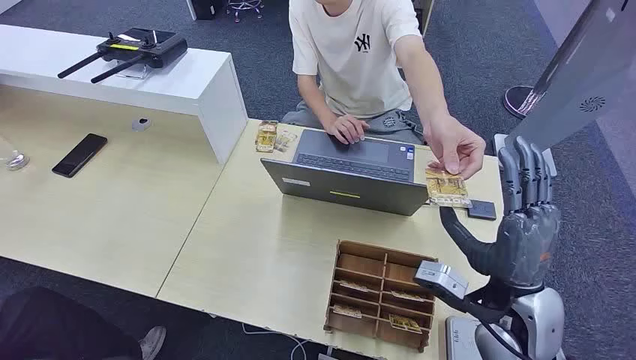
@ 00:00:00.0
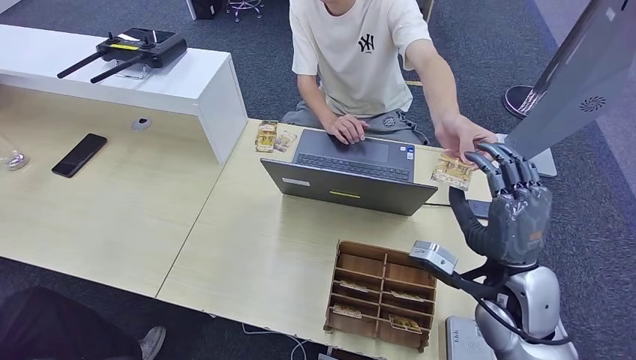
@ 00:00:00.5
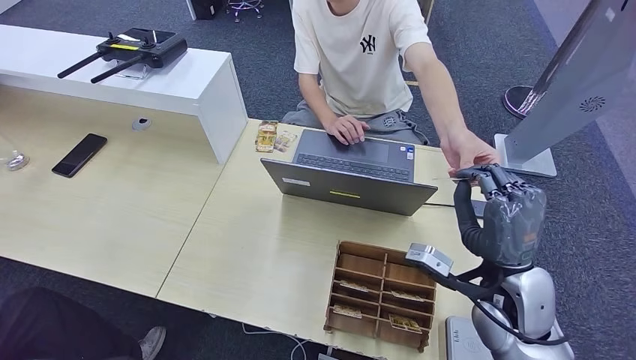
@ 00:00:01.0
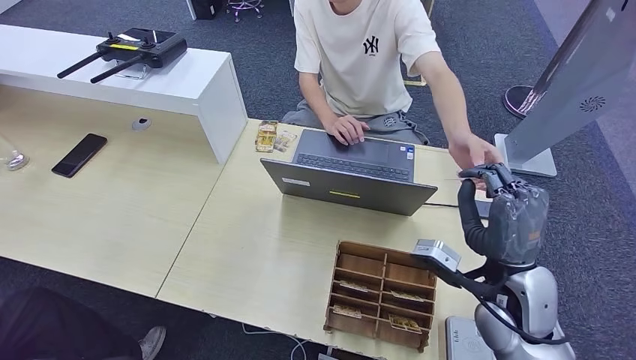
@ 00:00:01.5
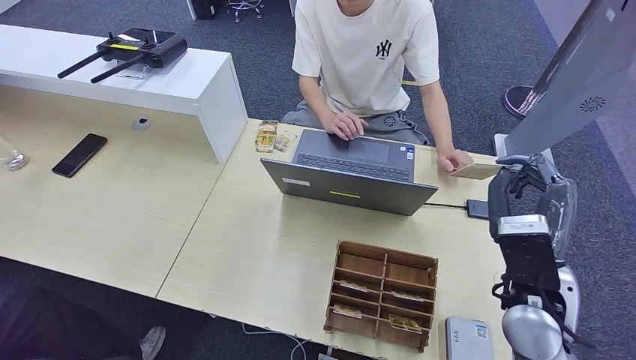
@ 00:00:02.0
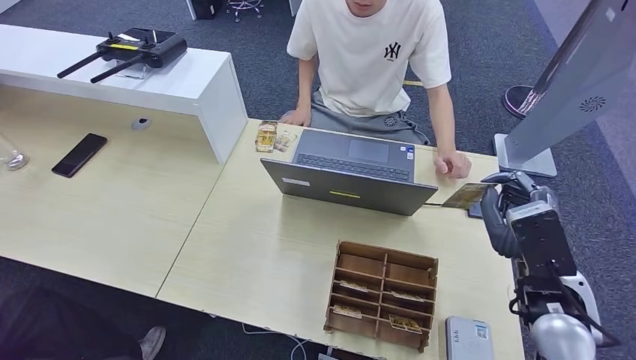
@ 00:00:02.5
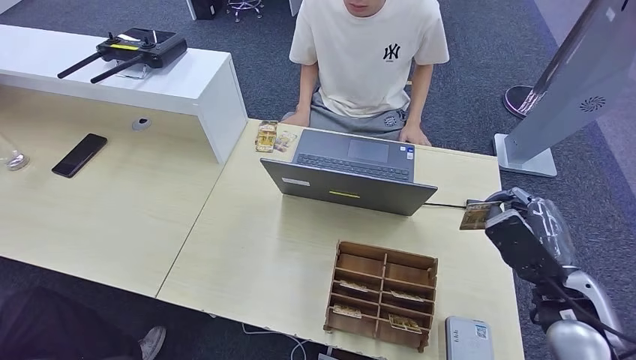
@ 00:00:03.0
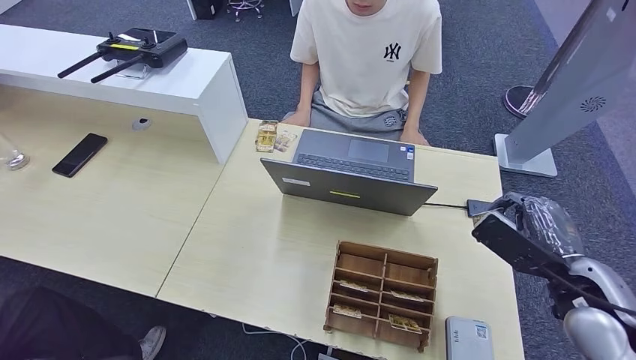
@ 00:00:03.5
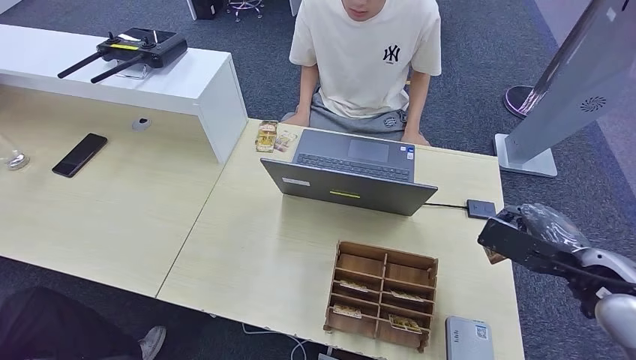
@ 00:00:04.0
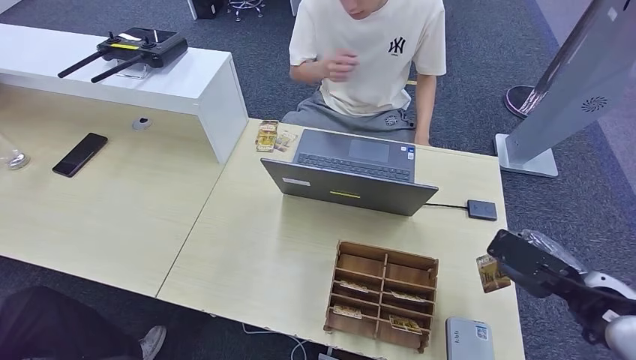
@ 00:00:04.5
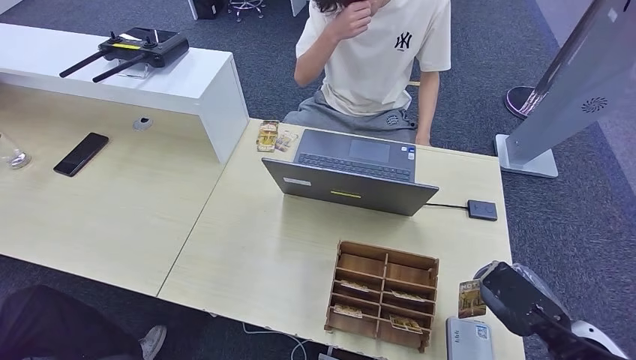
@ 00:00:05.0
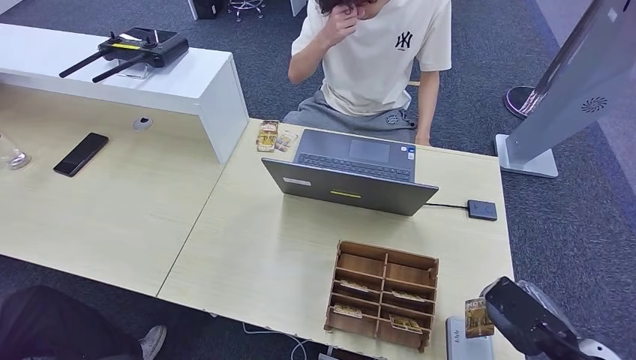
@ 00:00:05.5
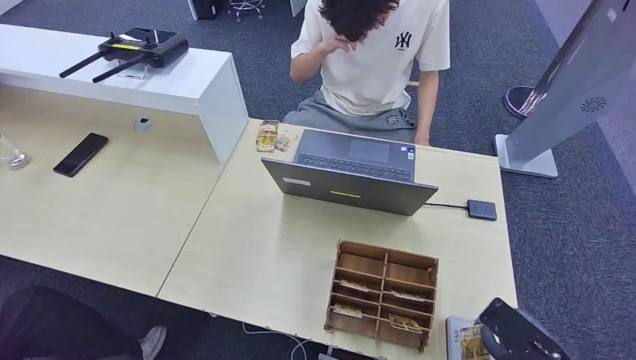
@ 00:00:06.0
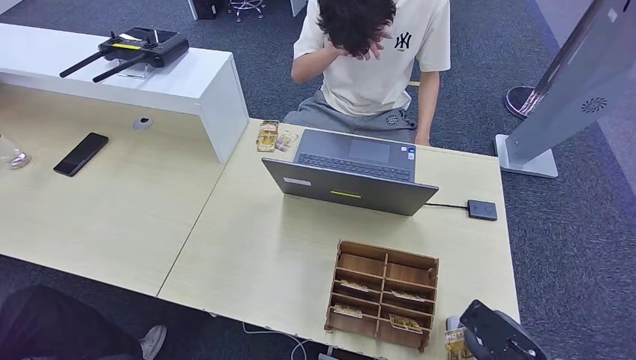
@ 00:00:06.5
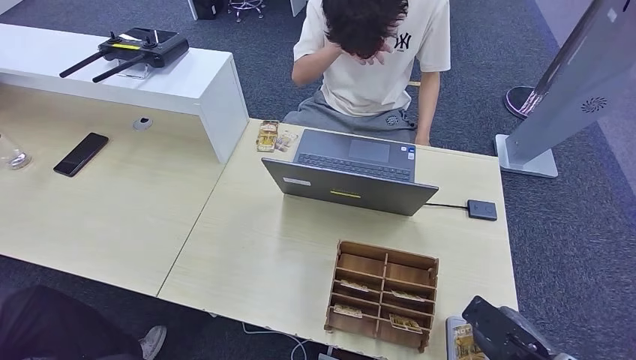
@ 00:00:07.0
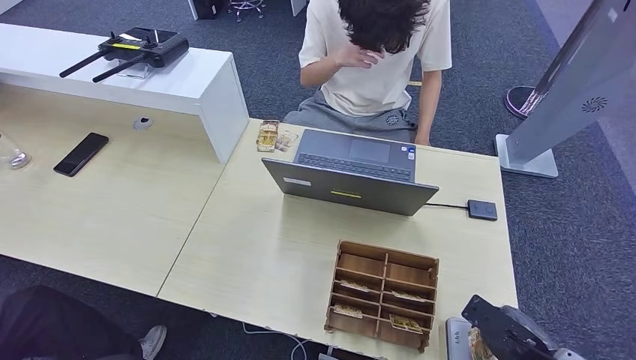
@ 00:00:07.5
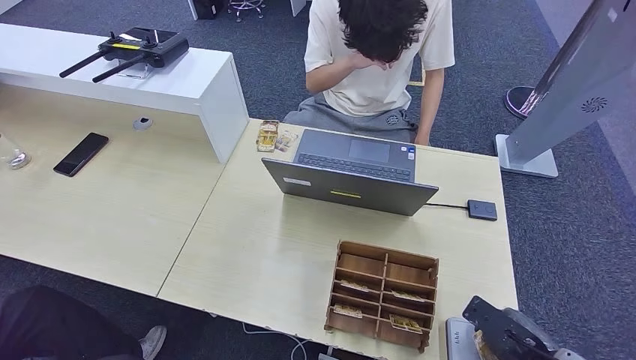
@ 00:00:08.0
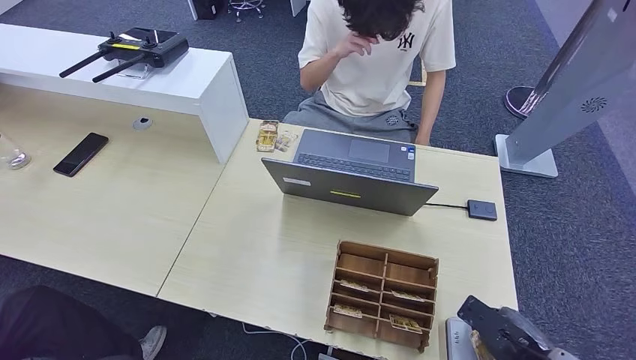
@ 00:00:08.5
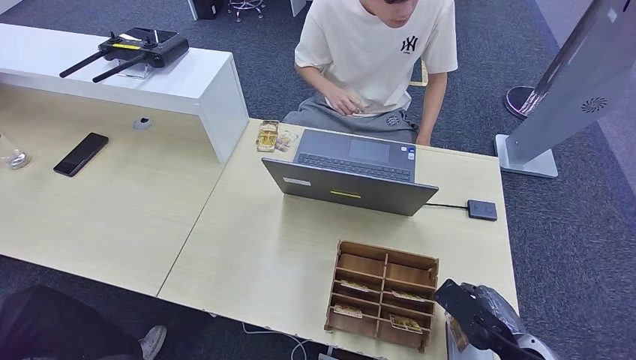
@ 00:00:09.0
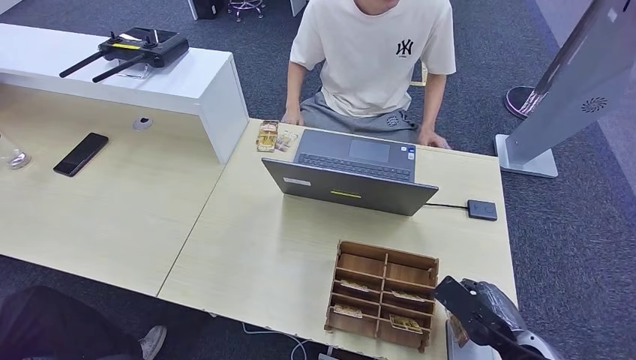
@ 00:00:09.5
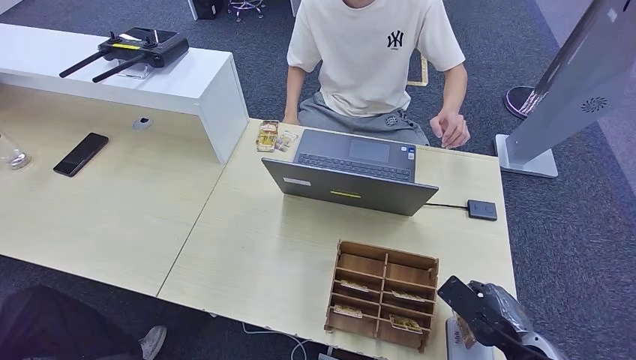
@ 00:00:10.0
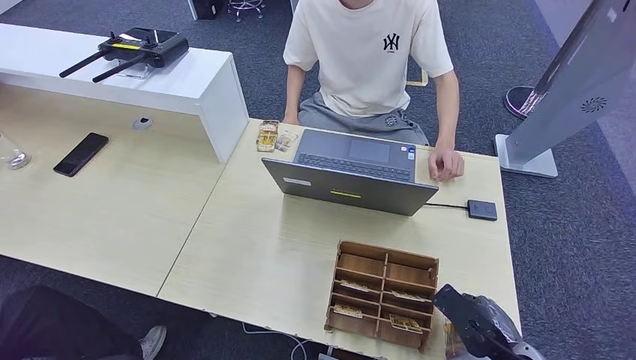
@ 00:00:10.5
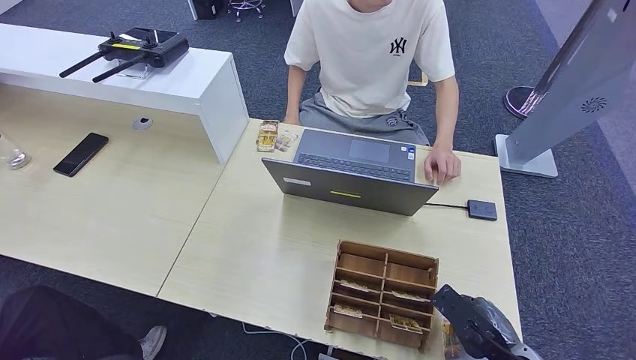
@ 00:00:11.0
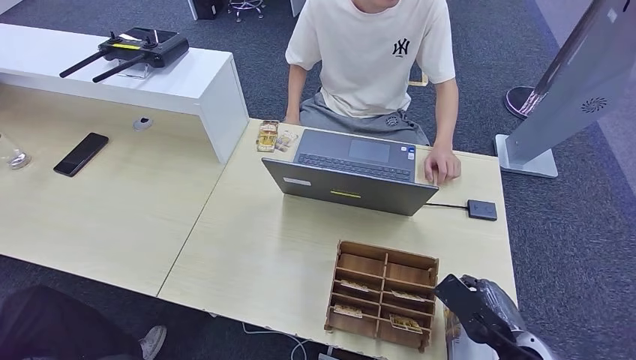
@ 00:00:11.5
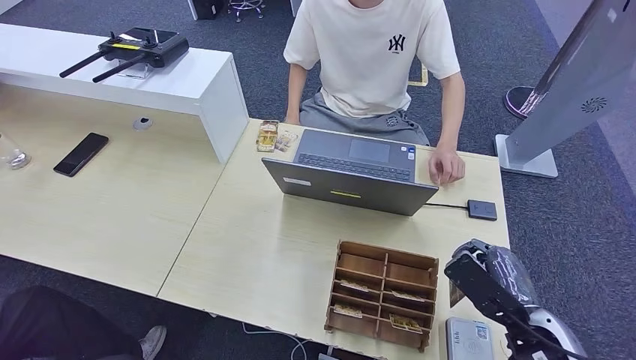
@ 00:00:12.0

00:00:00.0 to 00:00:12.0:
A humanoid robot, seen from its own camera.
Step, 00:00:00.0 to 00:00:02.0: Take the ID card from the person's hand.
Step, 00:00:02.5 to 00:00:08.0: Place the ID card on the card reader.
00:00:02.0 to 00:00:04.0: The right hand is displaced to the right by some 15 cm.
00:00:04.0 to 00:00:06.0: The right hand is displaced backward and downward by approximately 15 cm.
00:00:06.0 to 00:00:08.0: The hands stay close to where they were, moving slightly.
00:00:08.0 to 00:00:10.0: The right hand heads to the left, covering roughly 5 cm.
00:00:10.0 to 00:00:12.0: The right hand travels upward by approximately 5 cm.

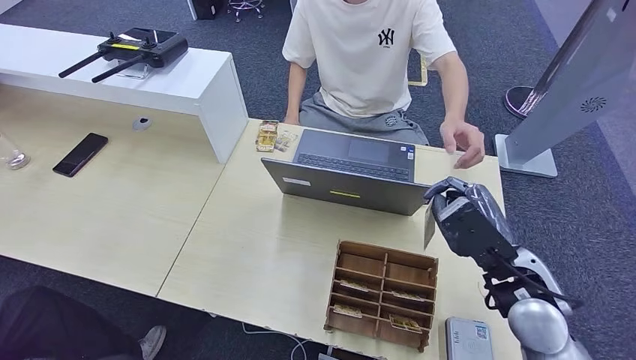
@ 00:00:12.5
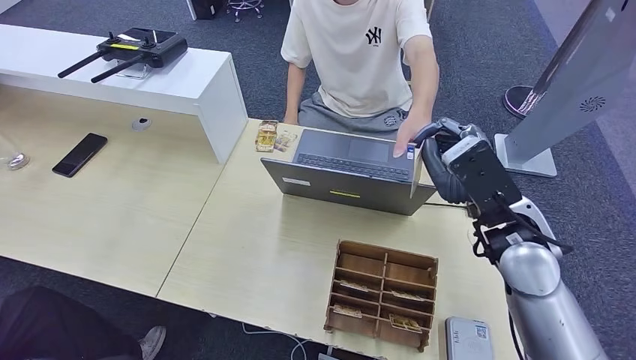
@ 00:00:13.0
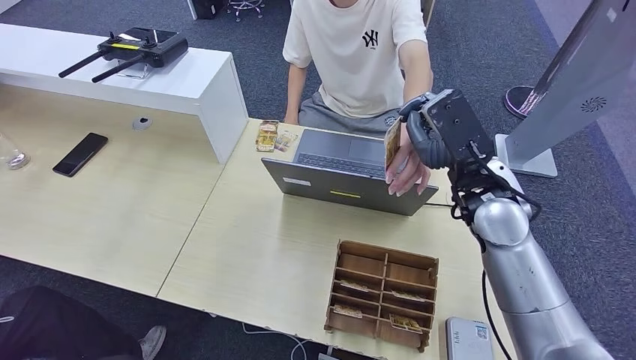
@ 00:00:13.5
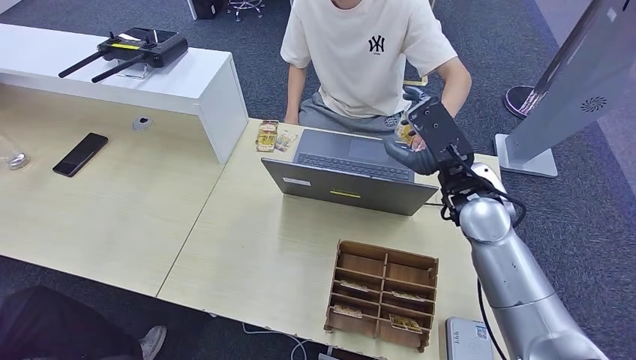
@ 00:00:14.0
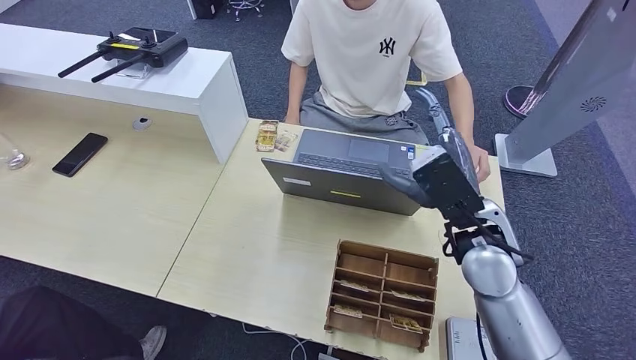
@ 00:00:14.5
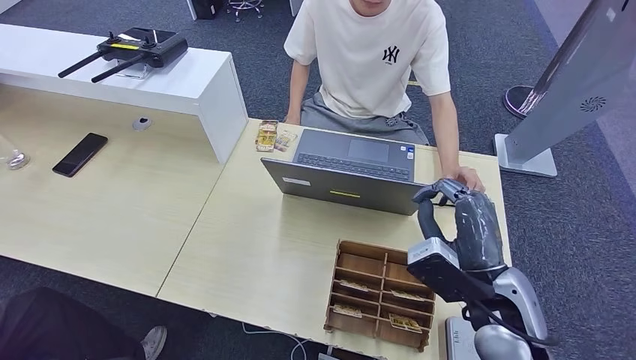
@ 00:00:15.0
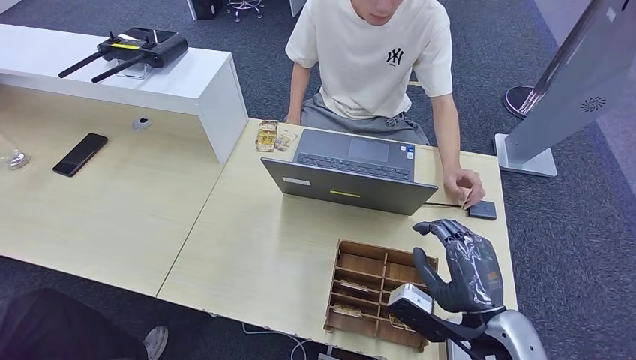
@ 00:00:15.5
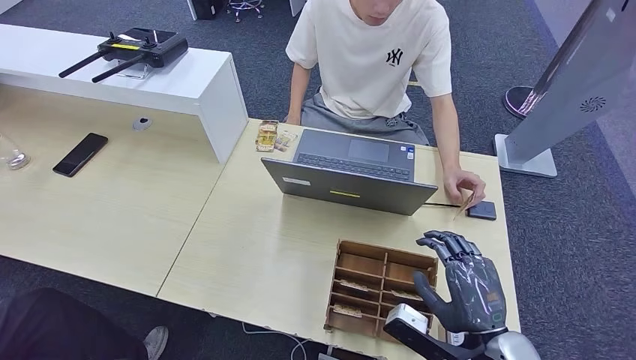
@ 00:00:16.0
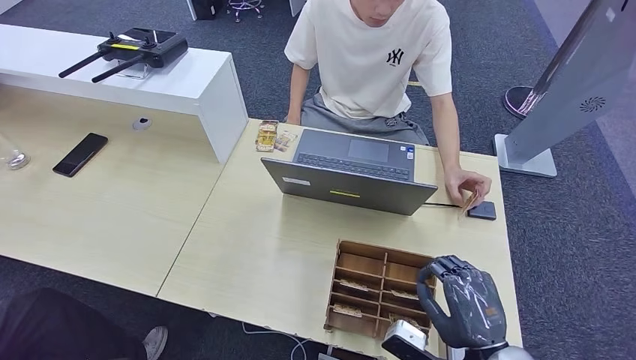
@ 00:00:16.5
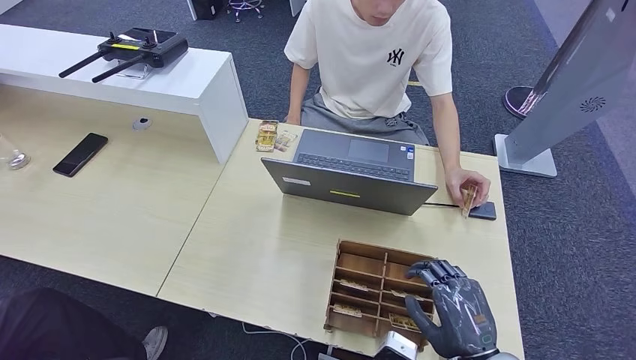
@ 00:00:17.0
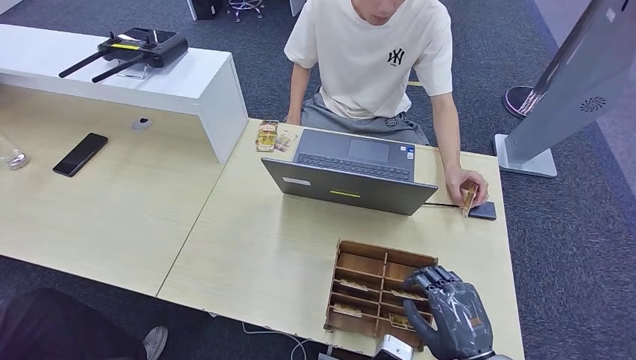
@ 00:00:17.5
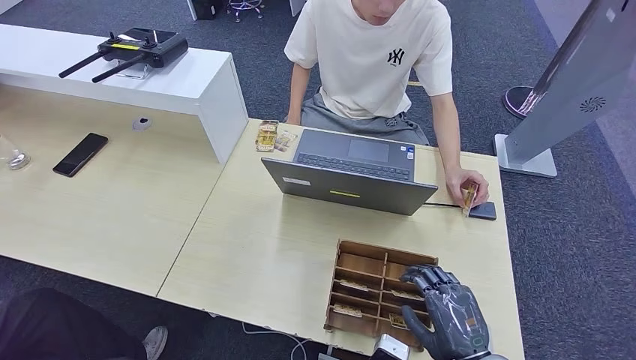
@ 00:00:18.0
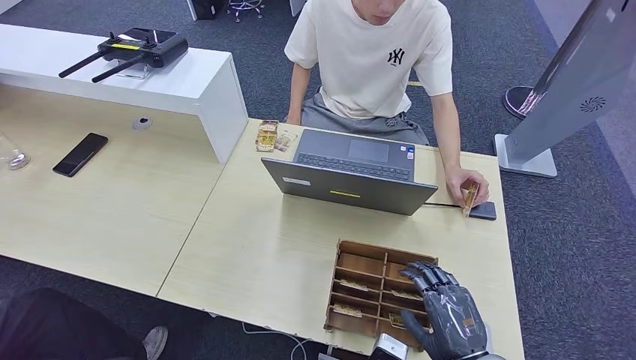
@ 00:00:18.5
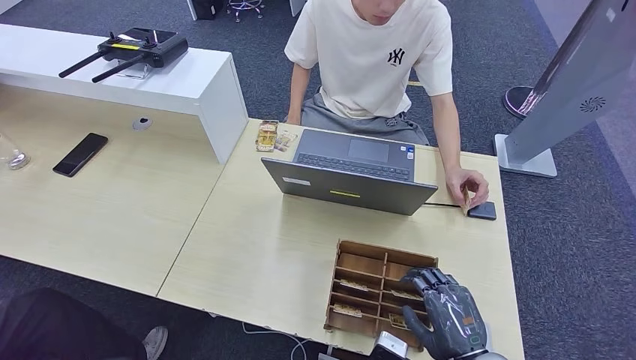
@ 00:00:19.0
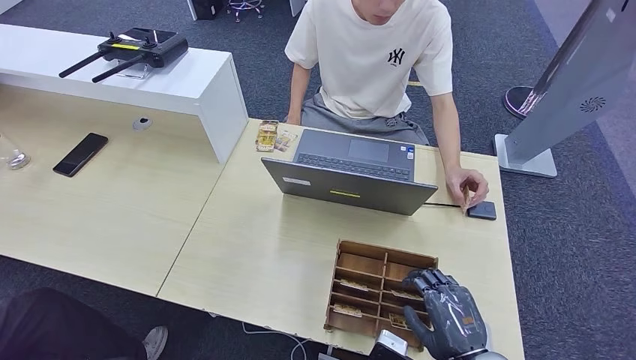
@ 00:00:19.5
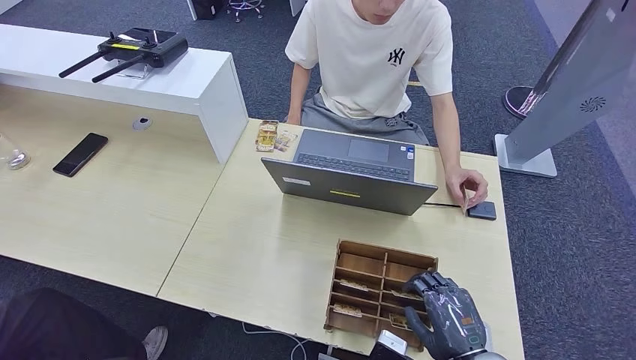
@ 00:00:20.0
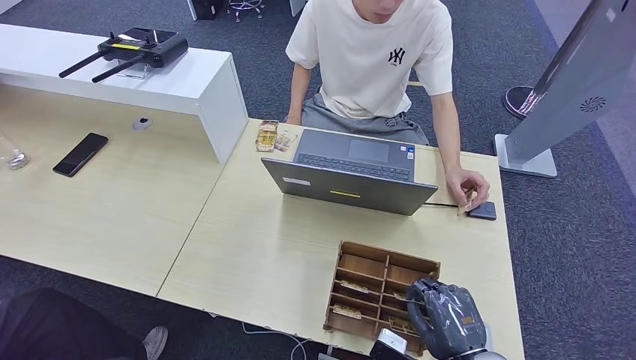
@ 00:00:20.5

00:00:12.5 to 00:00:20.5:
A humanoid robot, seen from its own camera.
Step, 00:00:12.5 to 00:00:15.0: Hand the ID card to the person.
00:00:12.5 to 00:00:14.5: The right hand heads to the left, covering about 10 cm.
00:00:14.5 to 00:00:16.5: The right hand goes about 20 cm backward, downward and to the right.
00:00:16.5 to 00:00:18.5: The hands make only small movements.
00:00:18.5 to 00:00:20.5: The two hands keep their place.
